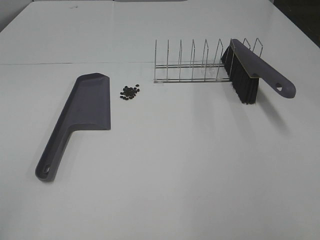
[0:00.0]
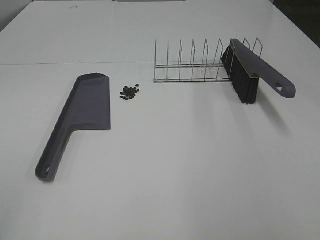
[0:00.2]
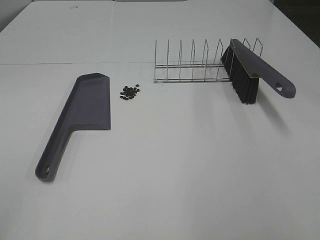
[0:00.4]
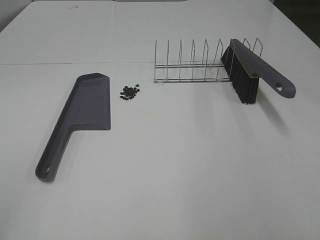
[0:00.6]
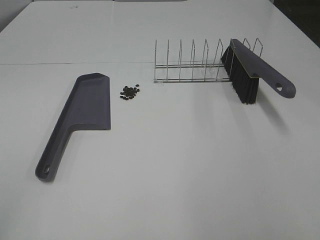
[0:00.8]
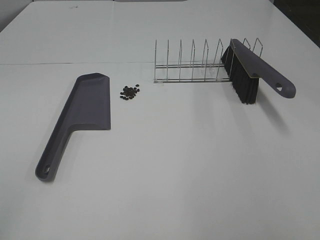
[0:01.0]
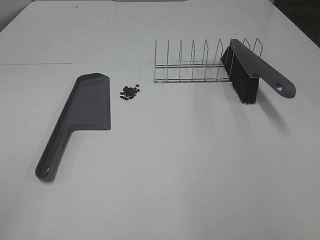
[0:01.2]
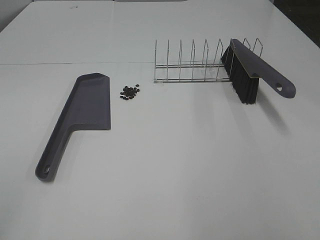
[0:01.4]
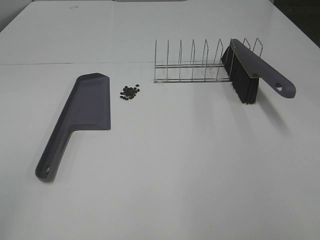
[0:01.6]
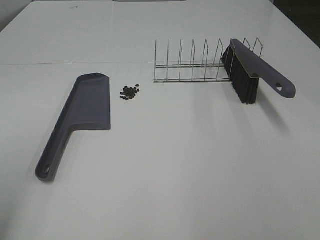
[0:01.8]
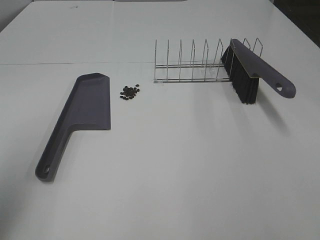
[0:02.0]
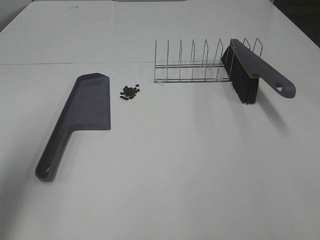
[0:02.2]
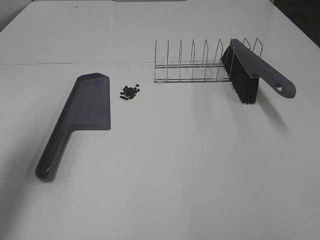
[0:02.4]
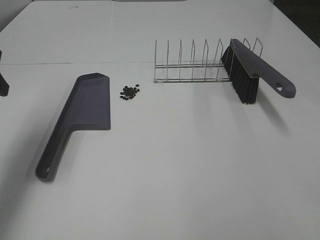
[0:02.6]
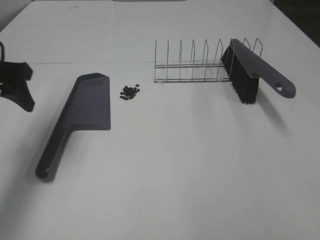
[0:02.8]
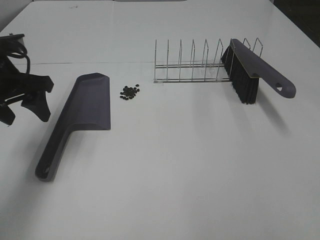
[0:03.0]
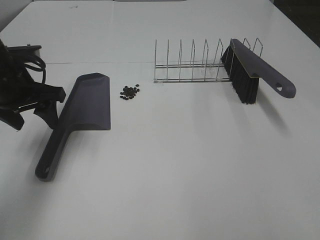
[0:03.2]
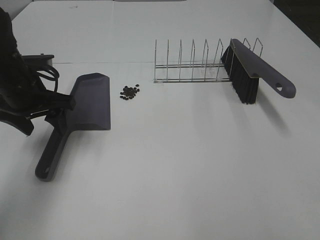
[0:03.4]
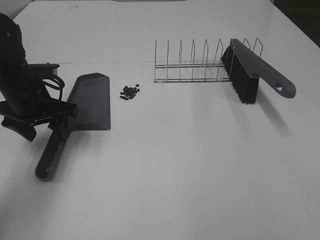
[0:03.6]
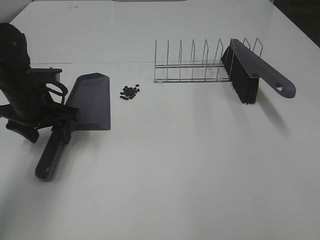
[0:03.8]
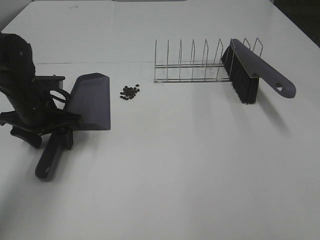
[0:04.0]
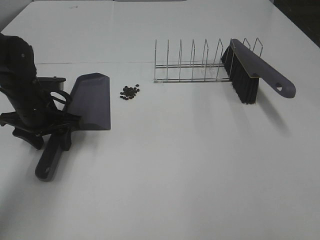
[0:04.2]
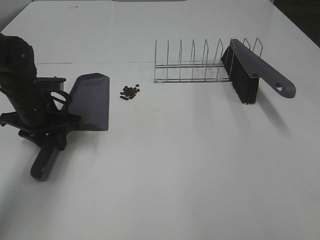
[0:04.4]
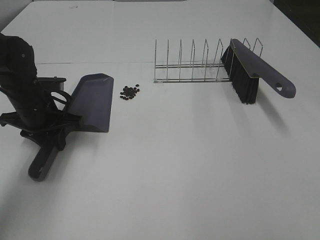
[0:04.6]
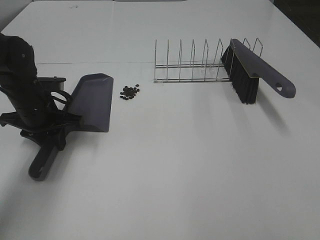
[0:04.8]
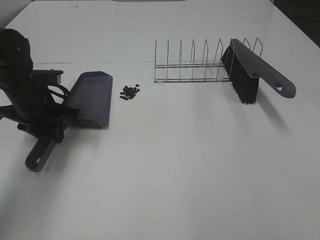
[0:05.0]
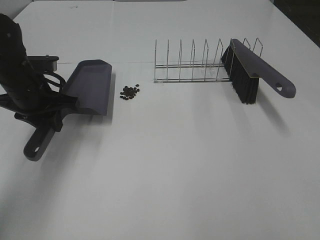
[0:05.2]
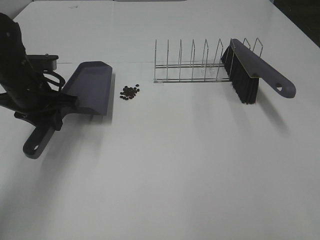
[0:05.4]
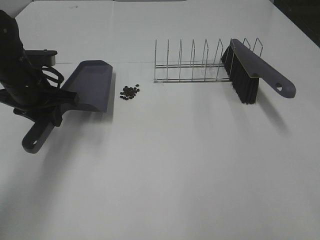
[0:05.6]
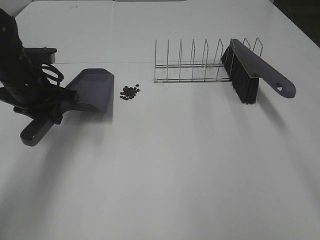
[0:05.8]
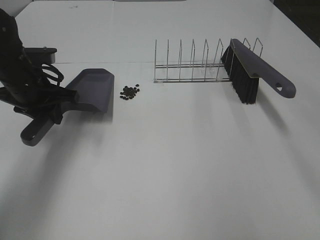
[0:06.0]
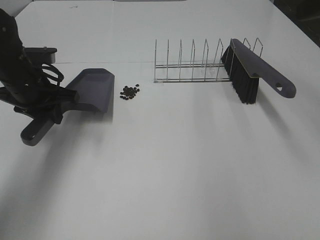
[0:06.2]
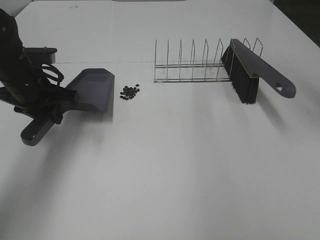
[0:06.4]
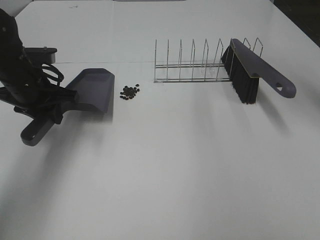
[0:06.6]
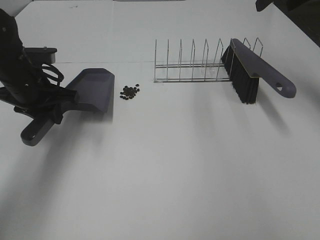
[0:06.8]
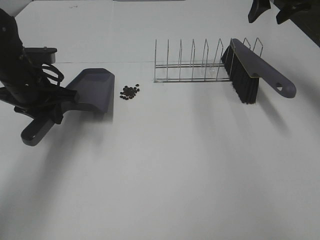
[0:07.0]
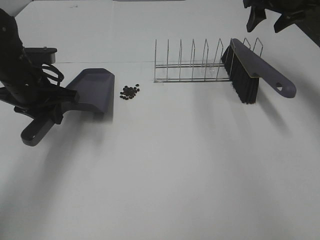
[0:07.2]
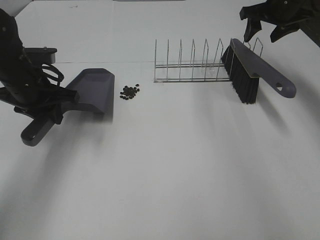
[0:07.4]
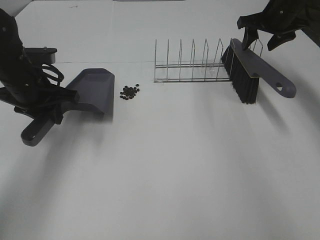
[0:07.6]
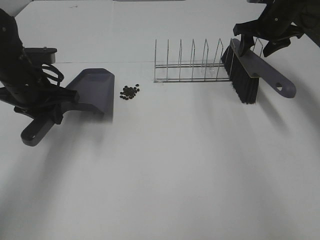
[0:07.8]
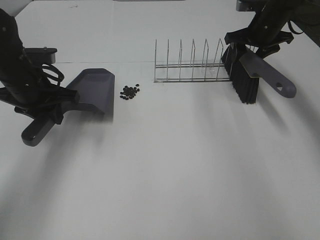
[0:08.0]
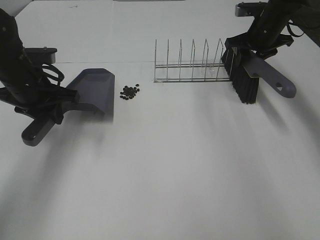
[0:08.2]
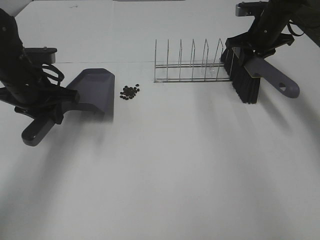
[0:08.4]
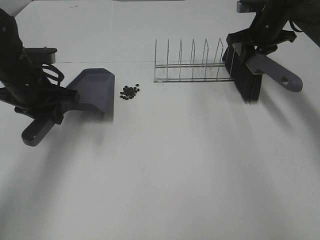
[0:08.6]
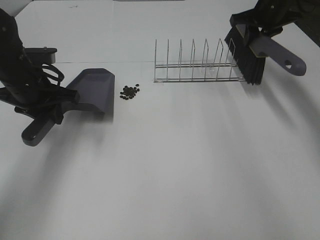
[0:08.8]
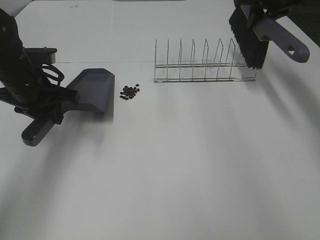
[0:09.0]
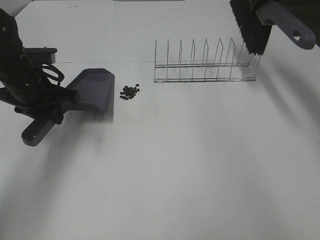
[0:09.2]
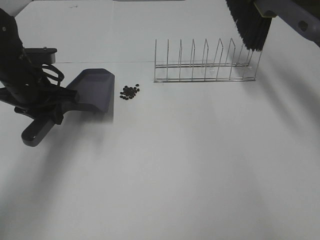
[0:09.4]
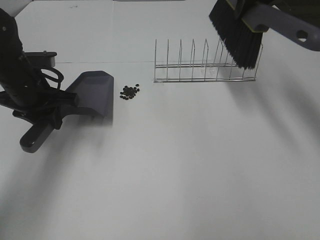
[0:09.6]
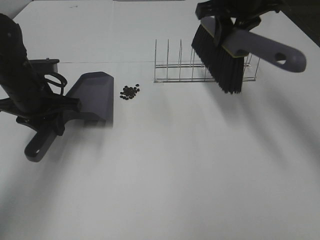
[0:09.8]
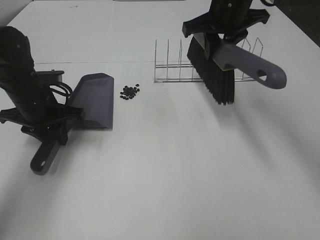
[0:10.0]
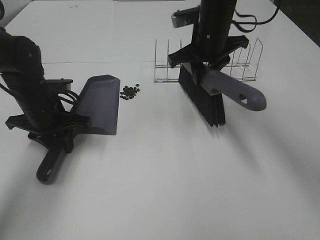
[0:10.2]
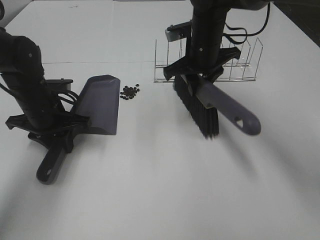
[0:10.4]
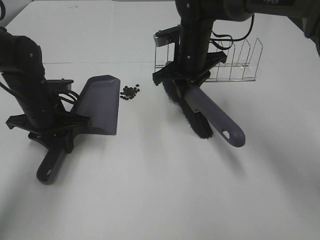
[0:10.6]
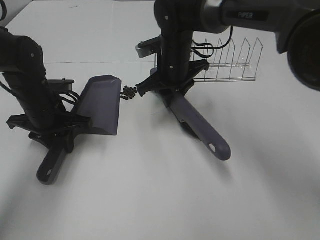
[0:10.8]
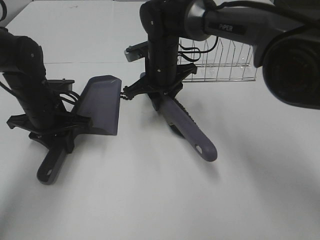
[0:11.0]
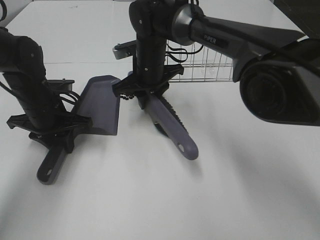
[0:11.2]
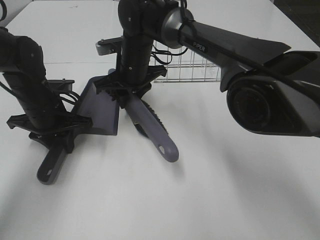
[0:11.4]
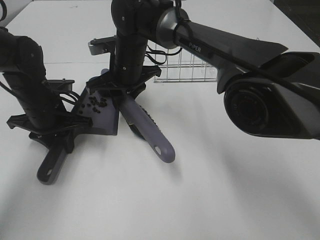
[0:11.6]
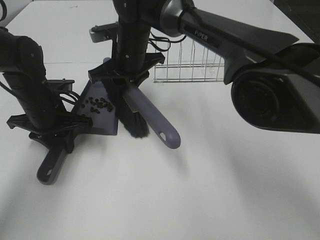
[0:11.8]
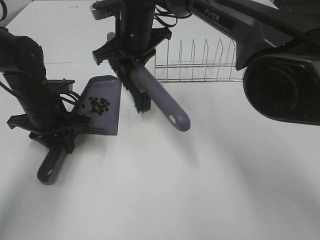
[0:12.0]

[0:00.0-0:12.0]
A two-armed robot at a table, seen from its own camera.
Task of the whole recording: Sweep Coffee Bean.
Step, 0:00.0 to 0:04.4: Left hand: grab the dustpan.
Step, 0:05.4 to 0:10.2: Right hand:grab the broom.
0:01.6 to 0:03.0: The left gripper heads forward, covering approximately 30 cm.
0:03.0 to 0:04.4: The left gripper moves downward, roughly 10 cm, and closes.
0:04.4 to 0:06.0: The left gripper heads upward, covering some 5 cm.
0:06.0 to 0:07.6: The right gripper shifts roughly 35 cm forward.
0:07.6 to 0:09.0: The right gripper shifts approximately 5 cm upward, and closes.
0:09.0 to 0:10.4: The left gripper goes approximately 5 cm downward. The right gripper goes roughly 20 cm to the left, downward and backward.
0:10.4 to 0:12.0: The right gripper is displaced to the left by some 15 cm.

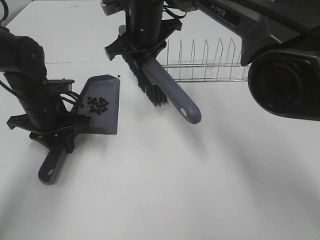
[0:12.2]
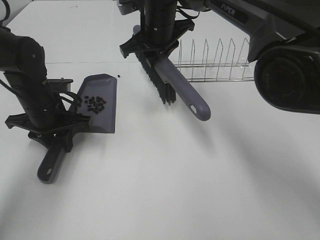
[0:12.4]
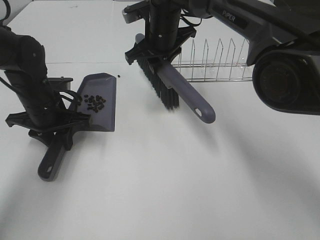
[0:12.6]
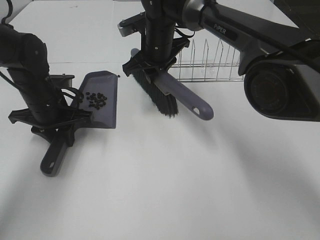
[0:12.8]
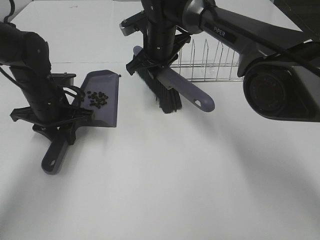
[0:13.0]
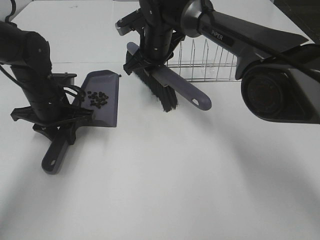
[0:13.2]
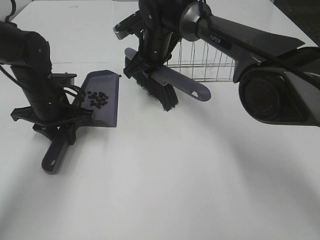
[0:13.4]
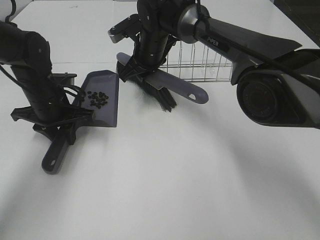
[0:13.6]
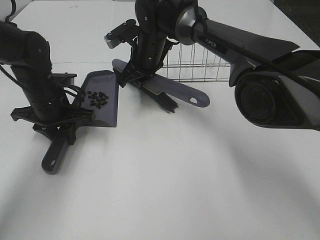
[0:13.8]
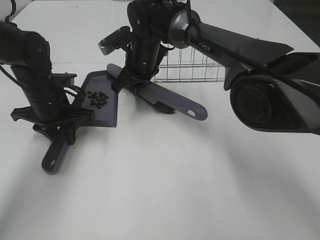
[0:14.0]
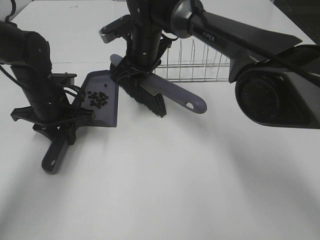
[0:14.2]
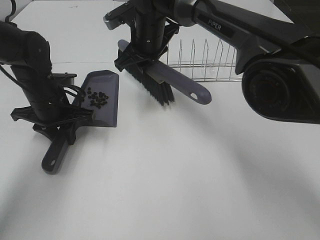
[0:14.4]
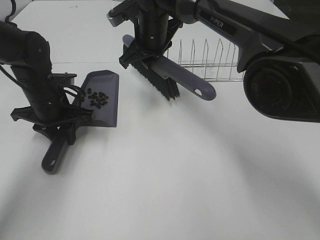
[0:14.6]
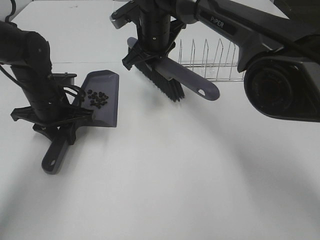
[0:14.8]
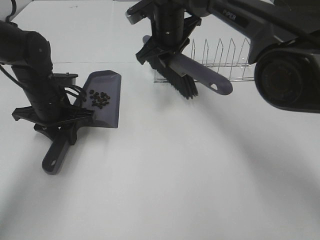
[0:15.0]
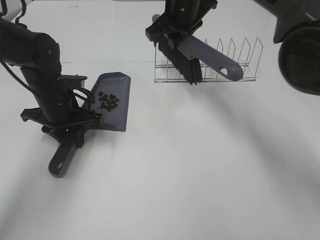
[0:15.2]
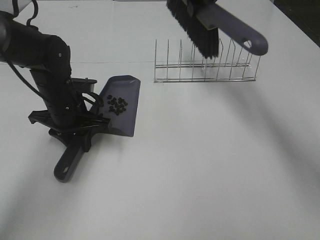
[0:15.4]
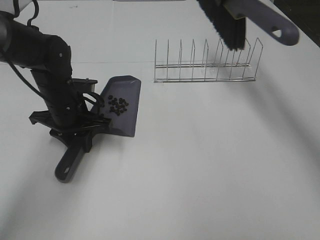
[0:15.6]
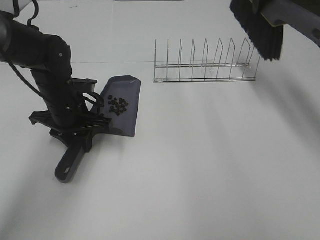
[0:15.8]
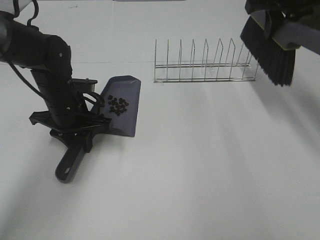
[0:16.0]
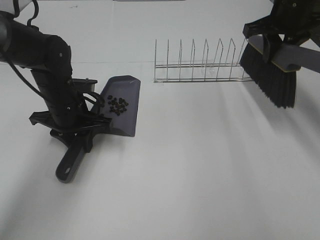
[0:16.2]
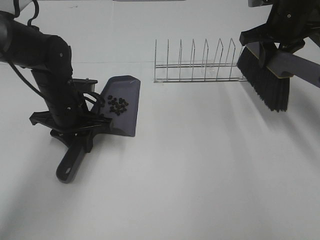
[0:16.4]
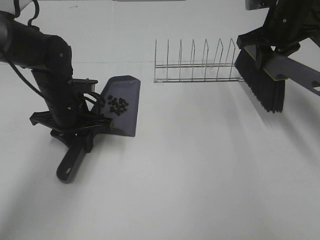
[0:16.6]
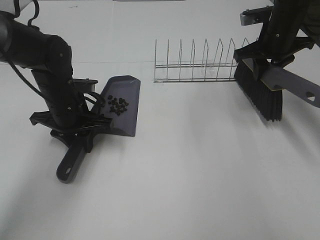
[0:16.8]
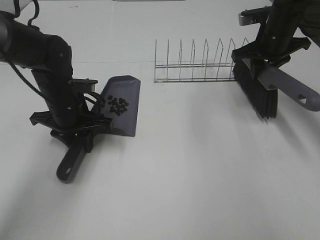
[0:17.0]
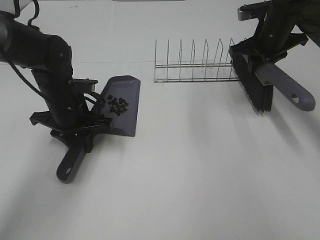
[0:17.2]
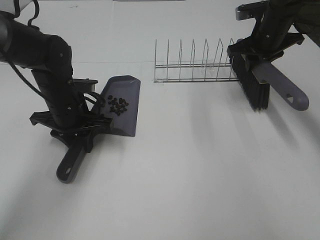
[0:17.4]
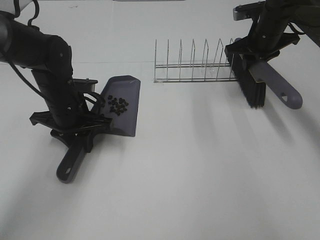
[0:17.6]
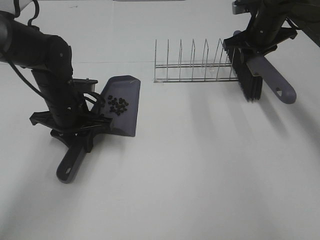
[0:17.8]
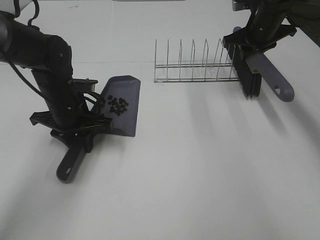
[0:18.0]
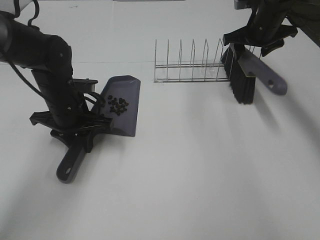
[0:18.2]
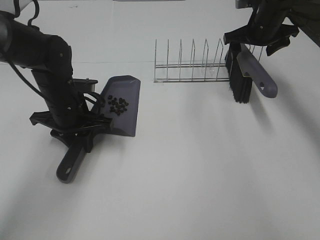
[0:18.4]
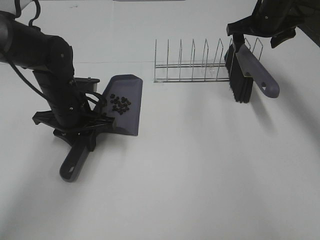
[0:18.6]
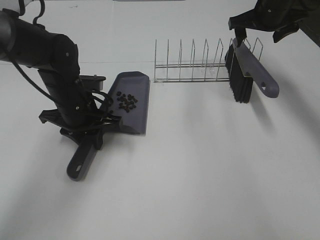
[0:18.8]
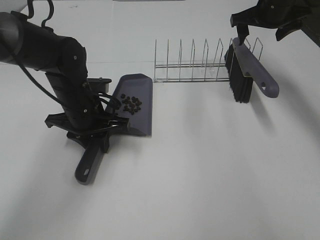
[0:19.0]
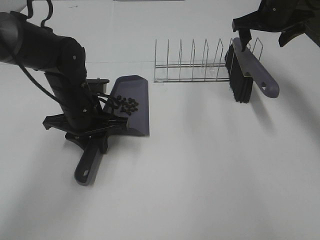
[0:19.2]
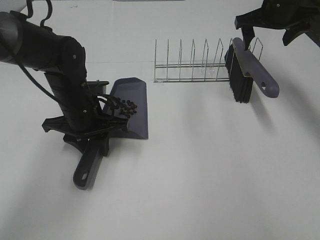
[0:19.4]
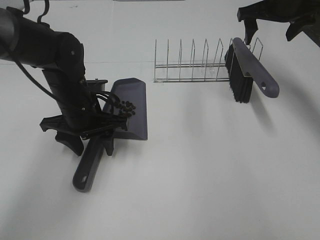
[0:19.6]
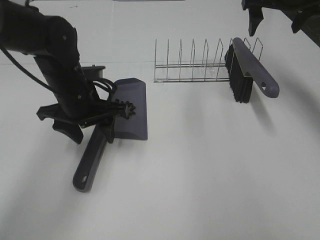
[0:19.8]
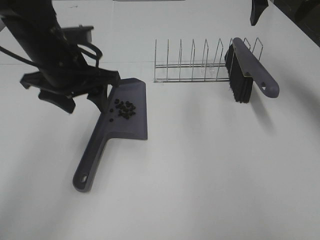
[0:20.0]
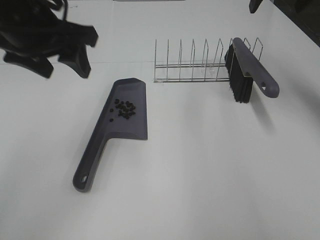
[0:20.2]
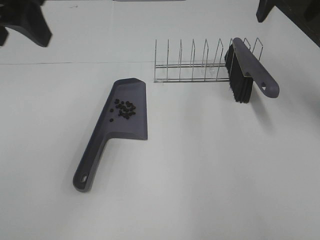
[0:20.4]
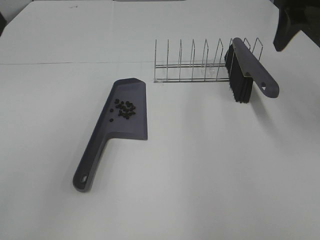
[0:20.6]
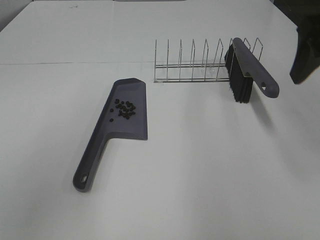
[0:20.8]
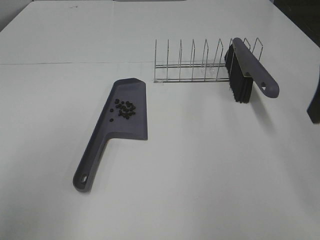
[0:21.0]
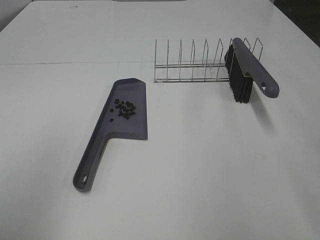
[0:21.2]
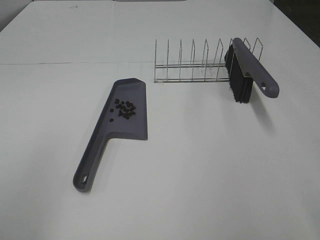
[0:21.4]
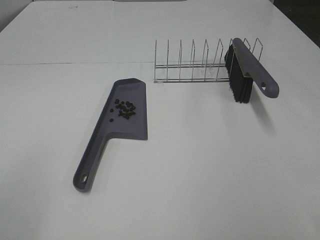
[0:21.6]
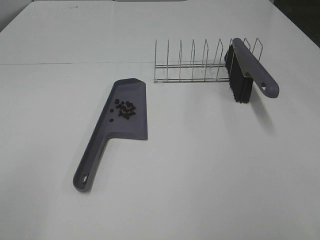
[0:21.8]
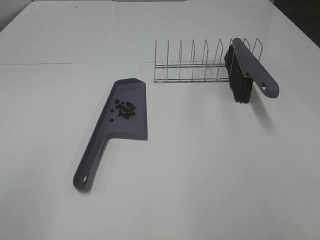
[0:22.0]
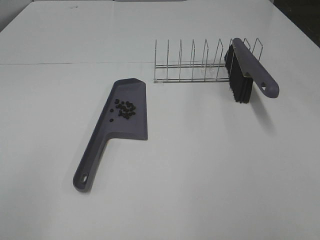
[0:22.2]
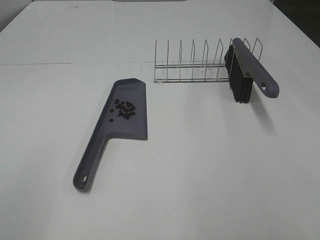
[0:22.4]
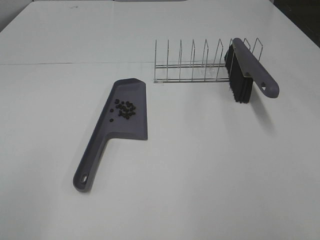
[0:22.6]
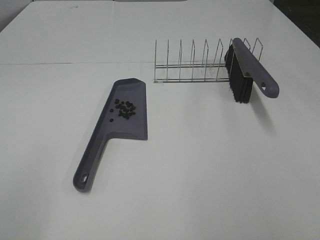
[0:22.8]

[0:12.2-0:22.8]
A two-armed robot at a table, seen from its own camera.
Task of the whole recording: Sweep Coffee Bean.
Step, 0:12.2 to 0:14.2: Right hand:sweep the coffee beans into the dustpan.
Step, 0:14.4 to 0:18.2: Right hand:place the broom on the rack.
Step, 0:18.4 to 0:19.6: Left hand:place the dustpan on the table.
0:12.2 to 0:13.8: The right gripper shifts about 10 cm downward.
0:13.8 to 0:15.2: The right gripper is displaced upward and to the right by roughly 15 cm.
0:15.2 to 0:16.8: The right gripper moves to the right, roughly 20 cm.
0:16.8 to 0:18.2: The right gripper heads forward, covering some 5 cm, and opens its fingers.
0:18.2 to 0:19.8: The right gripper is displaced upward and backward by about 10 cm, while the left gripper goes roughly 5 cm upward, and opens its fingers.
0:19.8 to 0:21.2: The left gripper heads backward, upward and to the left, covering about 35 cm, while the right gripper moves backward, about 30 cm.
